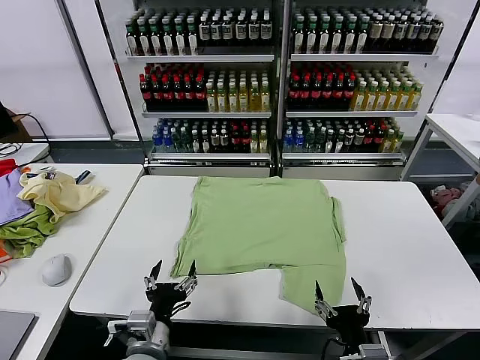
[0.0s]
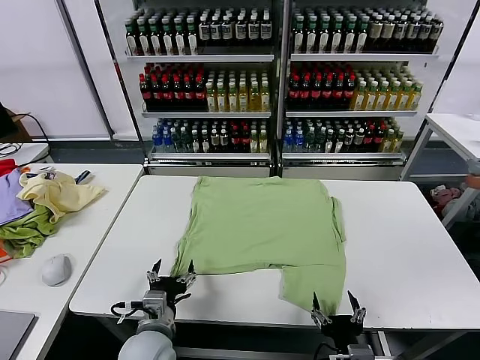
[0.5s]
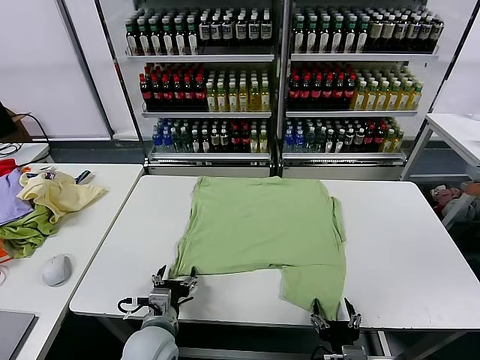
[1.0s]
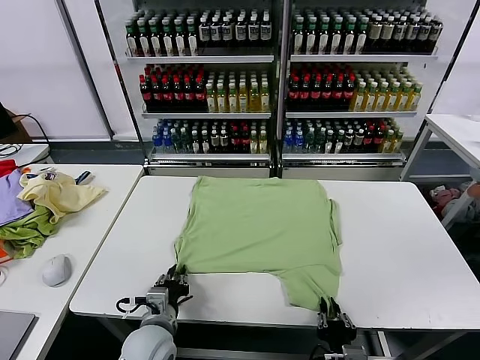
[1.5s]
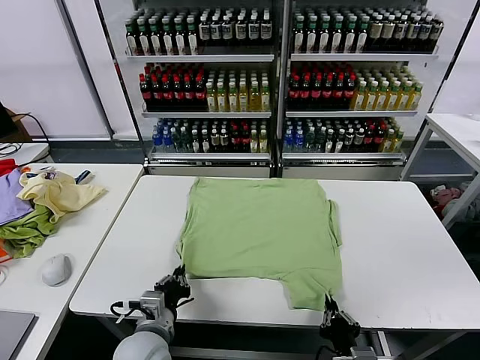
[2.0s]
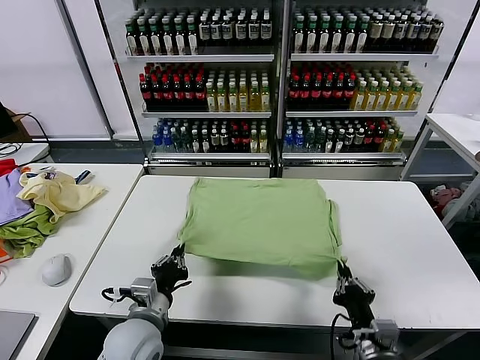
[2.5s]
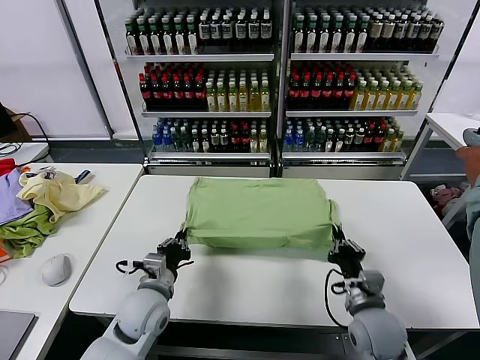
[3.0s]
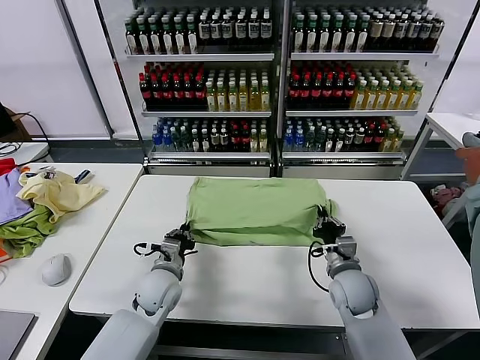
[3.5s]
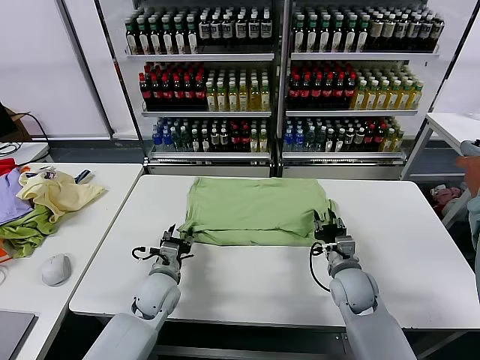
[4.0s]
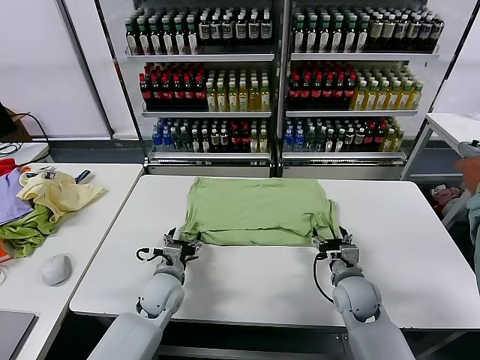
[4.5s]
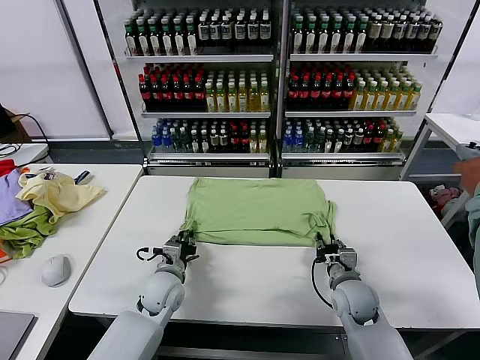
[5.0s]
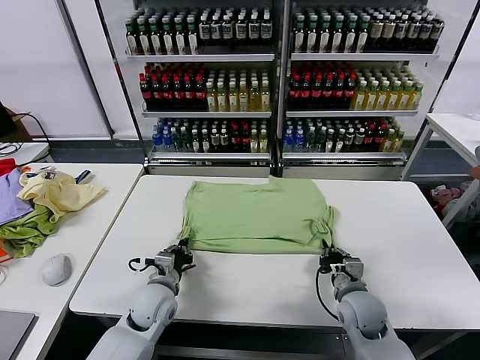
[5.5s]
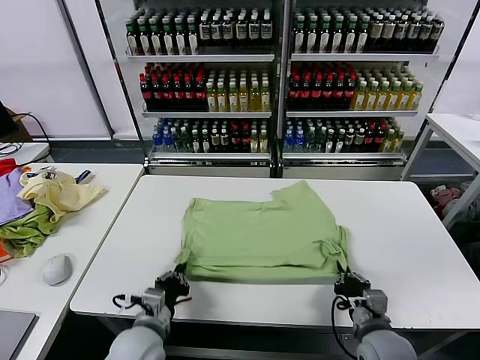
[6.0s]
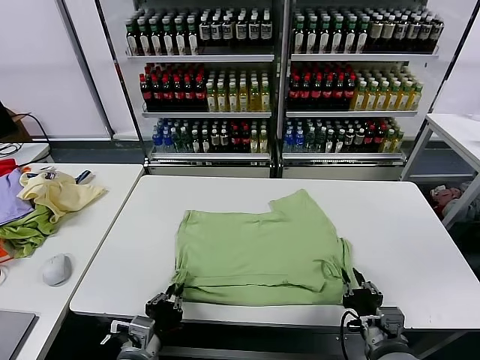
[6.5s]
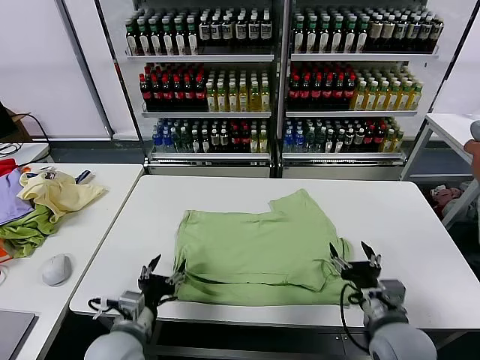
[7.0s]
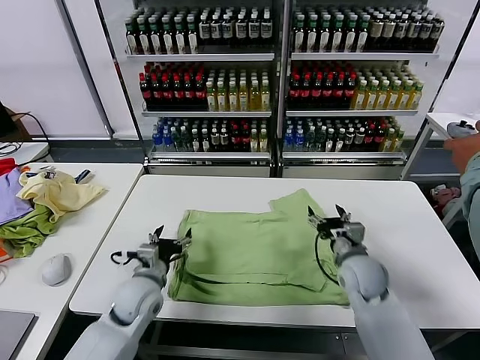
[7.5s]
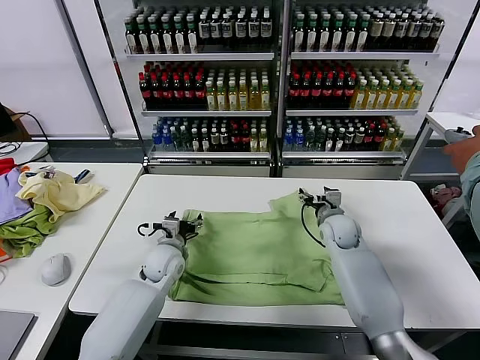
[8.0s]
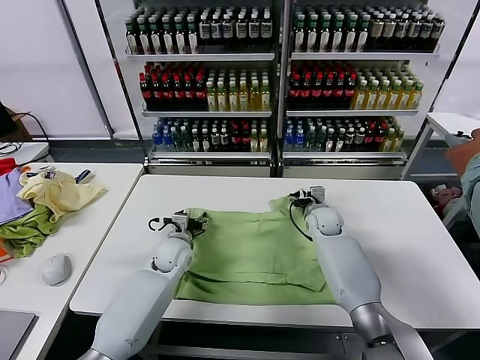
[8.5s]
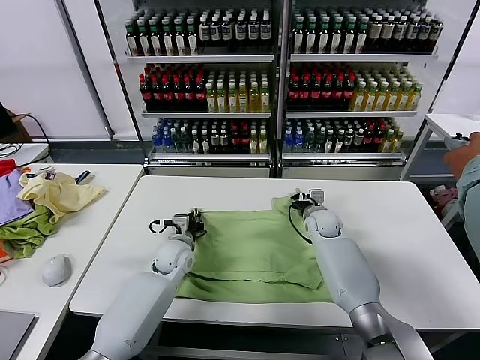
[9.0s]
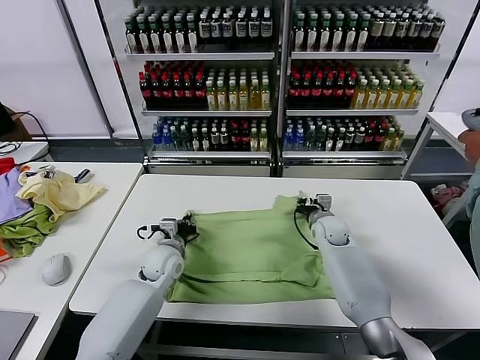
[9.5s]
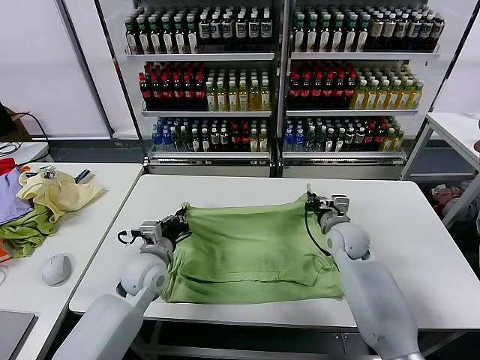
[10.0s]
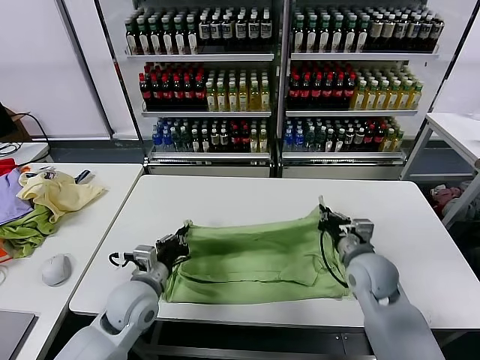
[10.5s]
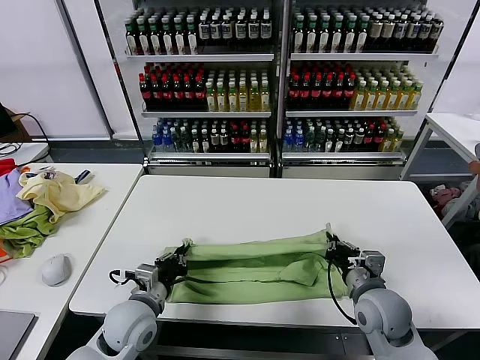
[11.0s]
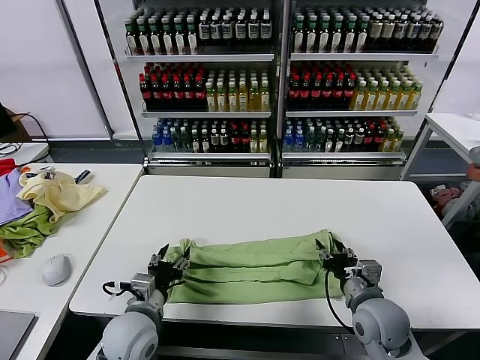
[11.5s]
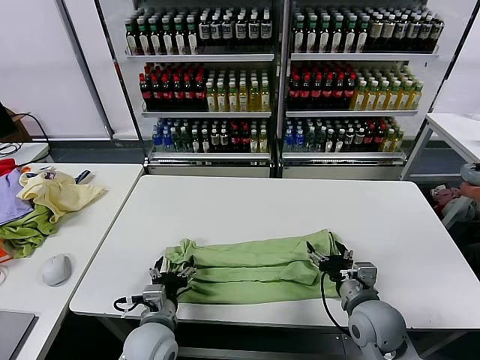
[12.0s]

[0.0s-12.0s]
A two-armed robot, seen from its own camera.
Task of the whole recording: fold and organize the clothes.
Step, 0.0s to 1.5s: use both grippers simultaneously to clamp the lower edge of the clothing fabric.
Step, 2.0s to 4.0s: use both grippers to drag the lower edge of the fabric forward and fold it over the upper edge.
Step, 4.5s to 6.5s: Drag the clothes downward with both gripper.
Step, 7.0s to 9.0s: use both grippers simultaneously to clamp the upper edge of the clothing fabric.
Step, 9.5s to 11.0s: use both grippers to drag the upper edge of the fabric backward and fold it over the lower edge.
2.0s to 4.0s: The right gripper shifts roughly 20 cm forward, and opens its fingers, while the left gripper shifts approximately 15 cm forward, and opens up.
4.0s to 6.0s: Both grippers travel together backward, about 15 cm. The left gripper closes up; the right gripper closes.
6.0s to 8.0s: The right gripper heads forward, covering roughly 30 cm, and opens its fingers. The left gripper travels forward by some 20 cm, and opens up.
8.0s to 10.0s: The left gripper changes place by roughly 5 cm, and closes, while the right gripper shifts approximately 5 cm backward, and closes.
10.0s to 12.0s: Both grippers travel together backward, roughly 15 cm. The right gripper opens its fingers; the left gripper opens.

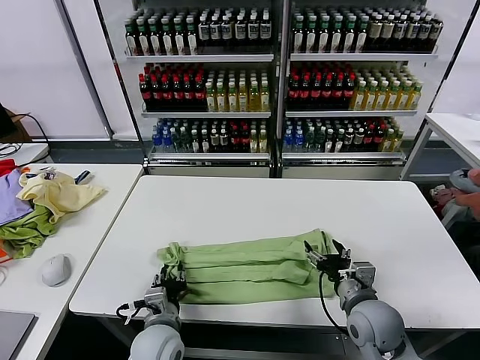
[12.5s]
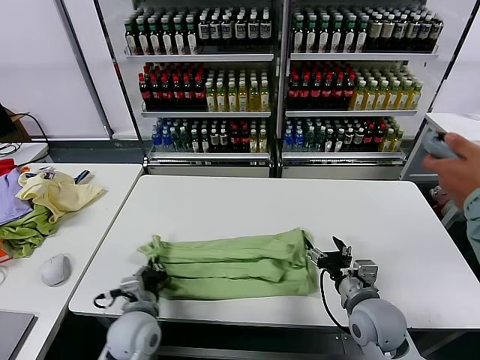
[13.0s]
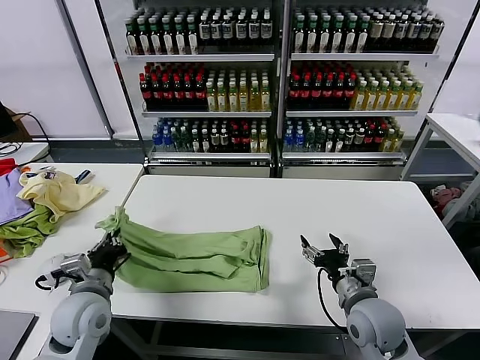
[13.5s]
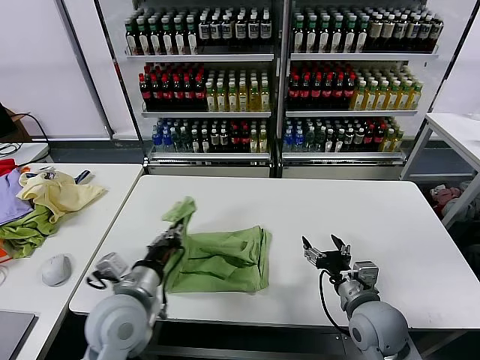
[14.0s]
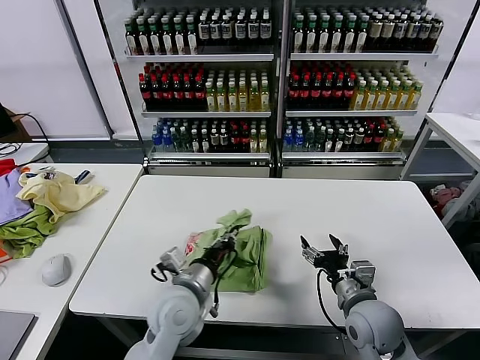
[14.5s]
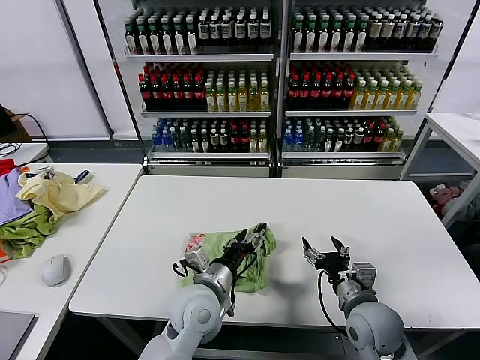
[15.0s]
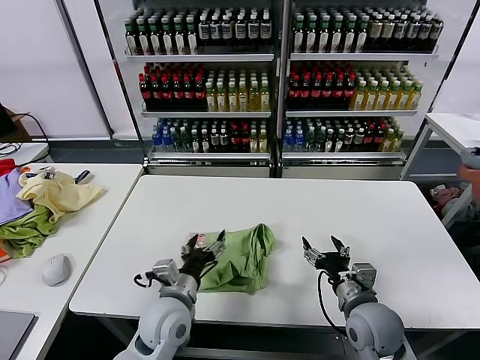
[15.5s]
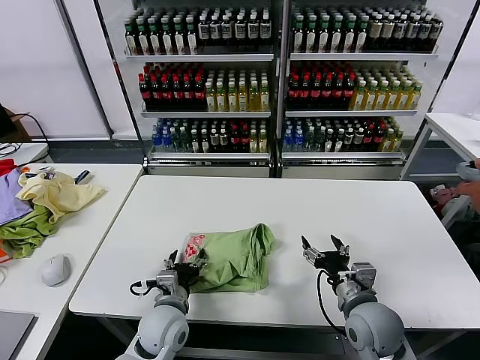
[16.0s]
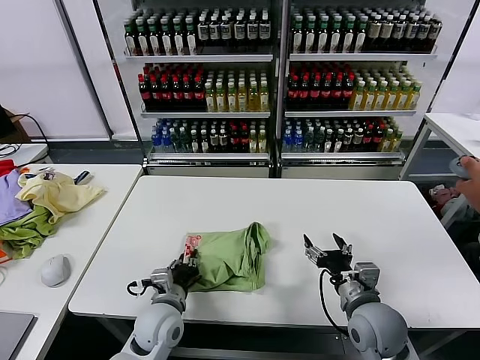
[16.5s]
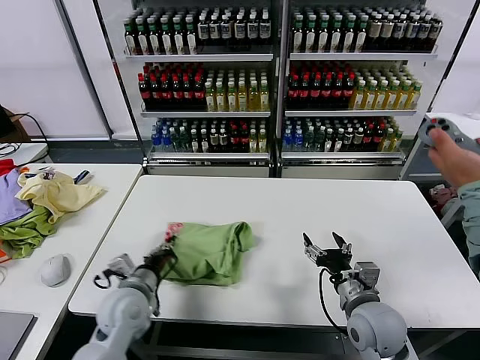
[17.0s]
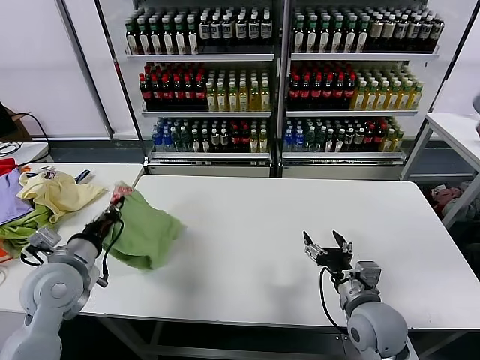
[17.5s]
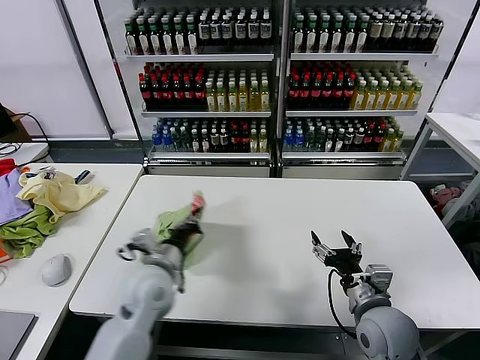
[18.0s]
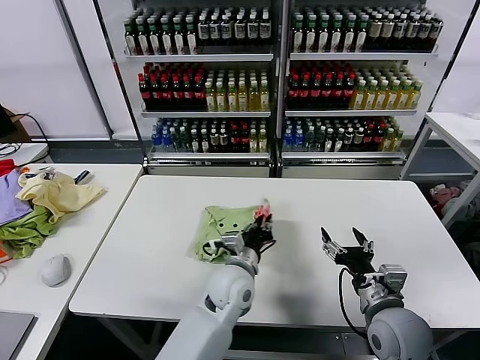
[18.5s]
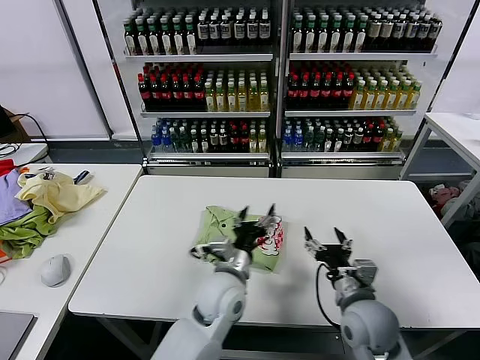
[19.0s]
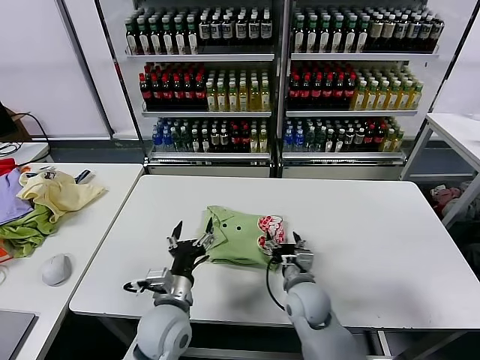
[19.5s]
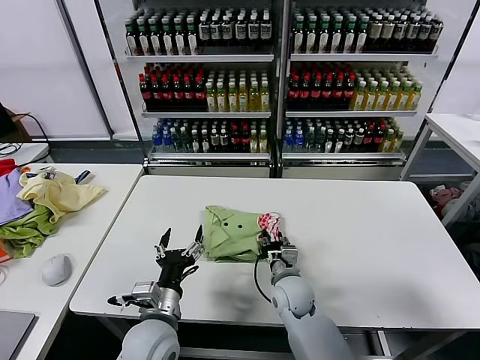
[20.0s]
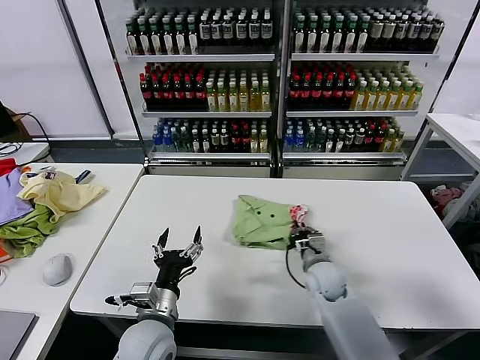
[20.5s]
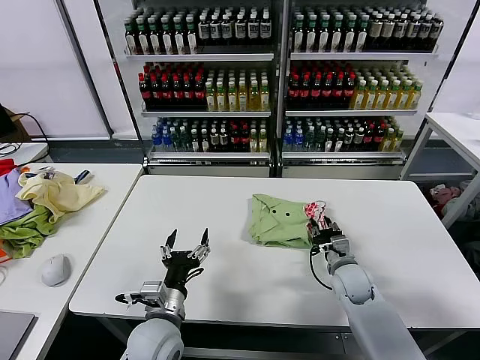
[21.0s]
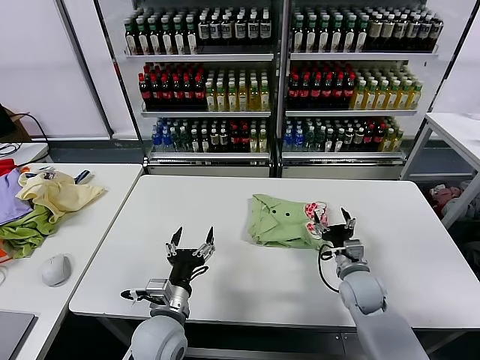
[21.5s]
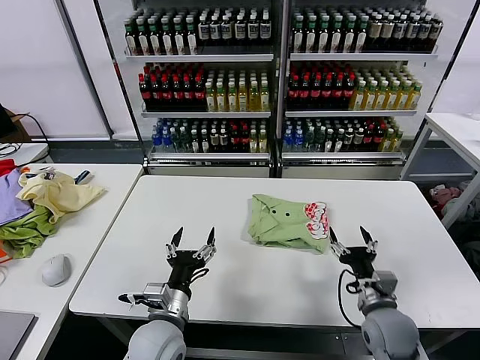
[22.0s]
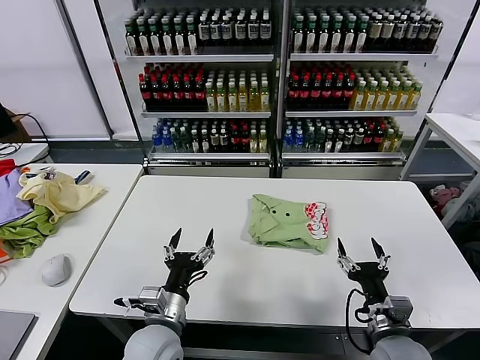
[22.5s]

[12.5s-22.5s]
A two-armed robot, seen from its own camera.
Task of the whole recording: fold and organize the clothes.
Step, 13.0s to 15.0s: use the left gripper to drag the left edge of the fabric to the left and folds it over the right edge.
Step, 15.5s to 18.5s: Flip the folded clothes over with left gripper.
Step, 19.0s to 21.0s: Drag the clothes to the center of the table.
12.5s to 14.5s: The left gripper is displaced upward by about 10 cm, and goes to the left and returns, about 15 cm each way.
14.5s to 16.5s: The left gripper goes approximately 10 cm downward, and opens, then closes again.
16.5s to 18.5s: The left gripper shifts some 15 cm to the right and forward.
18.5s to 20.5s: The left gripper is displaced to the left and backward by roughly 20 cm, and opens, while the right gripper travels forward, downward and to the left by approximately 20 cm, and closes its fingers.
20.5s to 22.5s: The right gripper is displaced backward and to the right by roughly 20 cm, and opens.

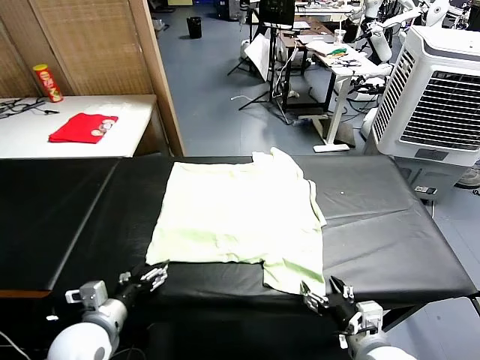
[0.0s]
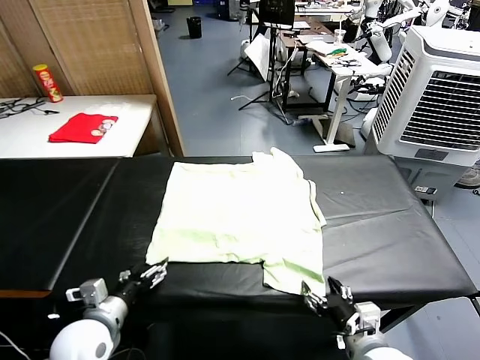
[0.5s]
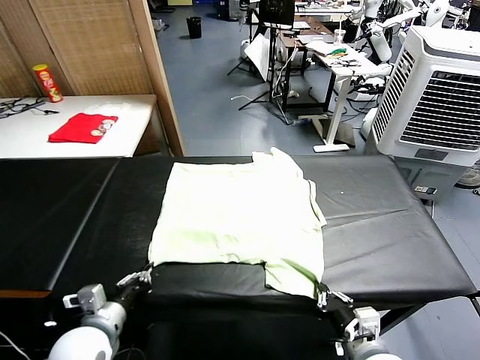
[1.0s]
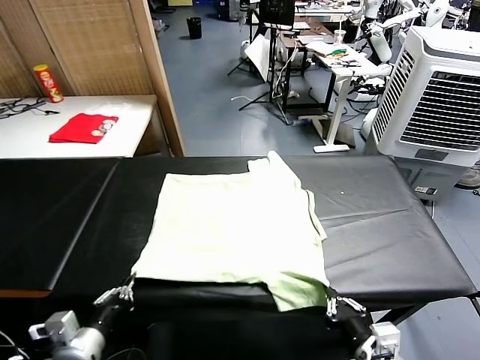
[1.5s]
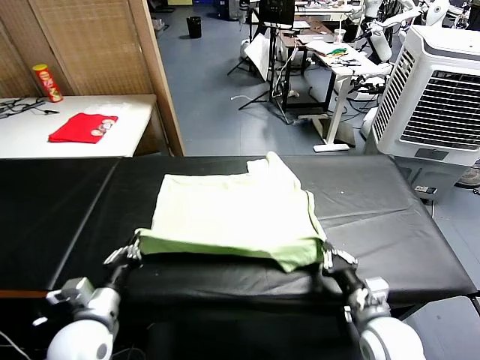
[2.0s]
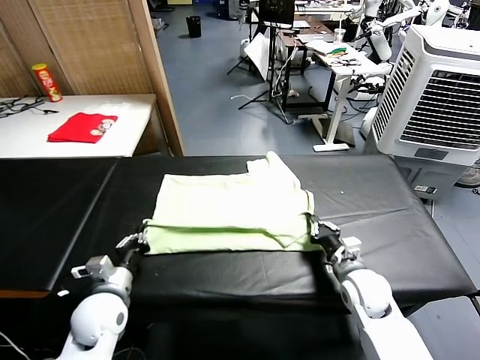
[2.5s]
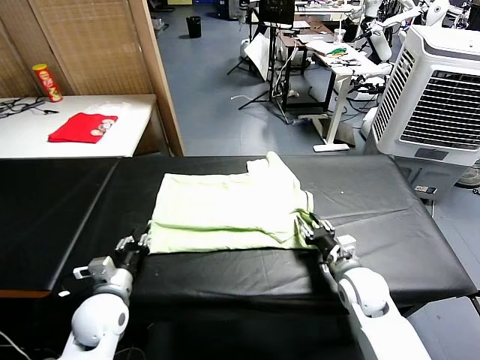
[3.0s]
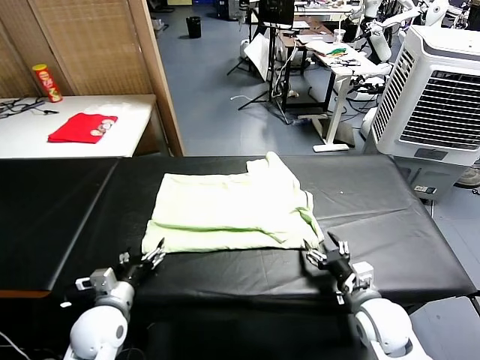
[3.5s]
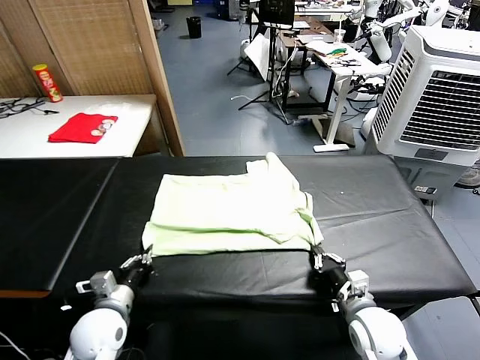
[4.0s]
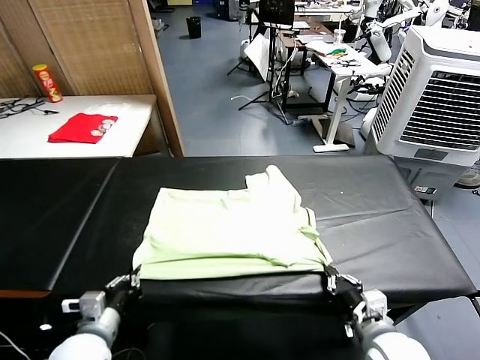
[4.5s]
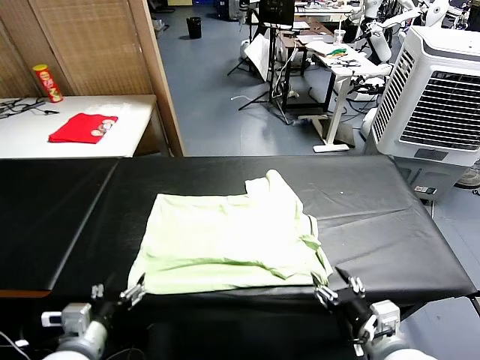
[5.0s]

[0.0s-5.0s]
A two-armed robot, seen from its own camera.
Task of the whole recording: fold and organize the clothes.
Step, 0.0s to 1.0s: use both grippers simultaneously to clamp the lower edge of the clothing fabric.
Step, 1.5s to 3.0s: use both grippers to drag the lower edge of the fabric forward and fold it over the upper edge.
Step, 3.5s to 5.0s: Drag the clothes downward with both gripper.
2.5s to 5.0s: The left gripper goes about 15 cm backward and upward, and opens its fingers; the right gripper travels backward and upward by about 20 cm, and opens.
